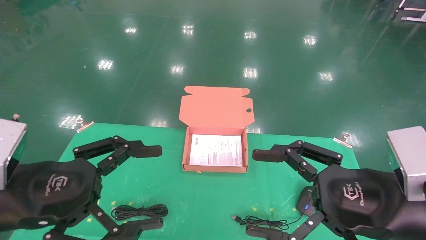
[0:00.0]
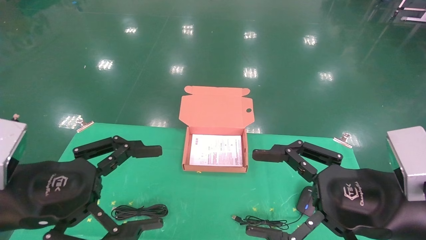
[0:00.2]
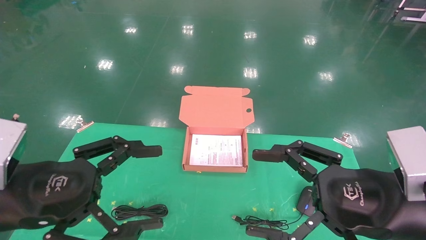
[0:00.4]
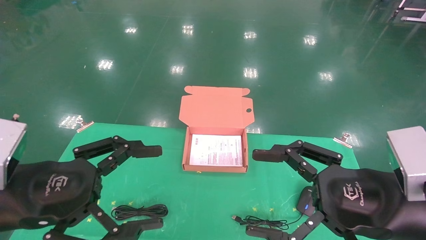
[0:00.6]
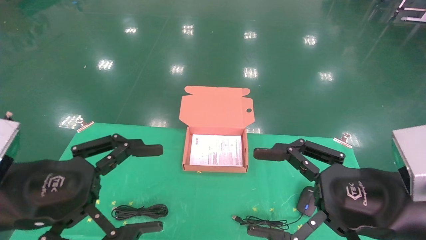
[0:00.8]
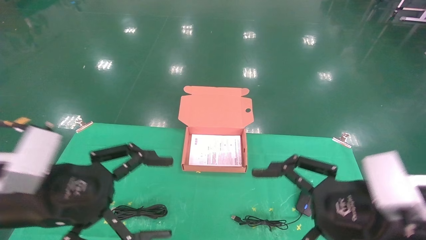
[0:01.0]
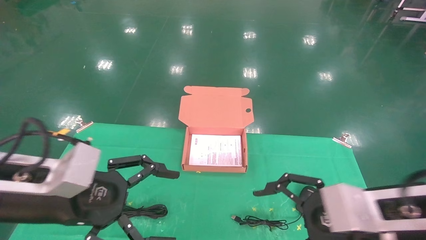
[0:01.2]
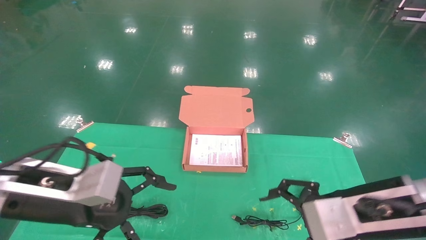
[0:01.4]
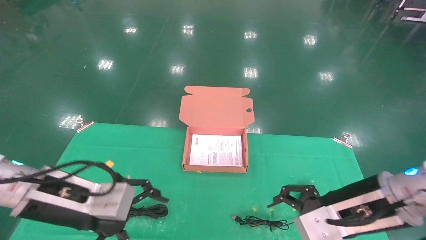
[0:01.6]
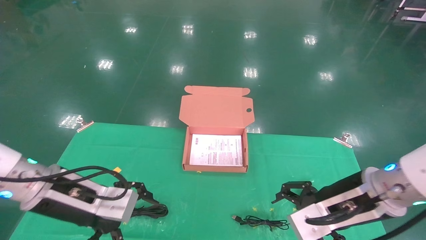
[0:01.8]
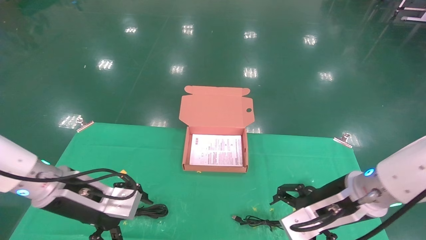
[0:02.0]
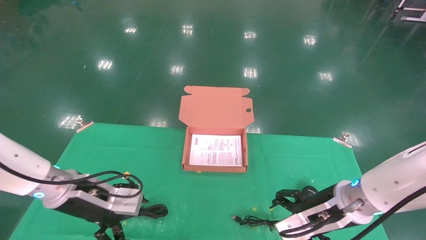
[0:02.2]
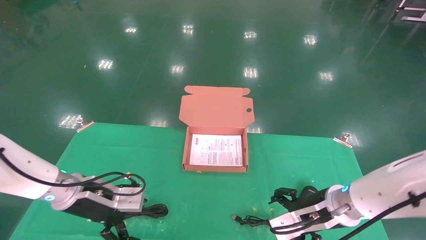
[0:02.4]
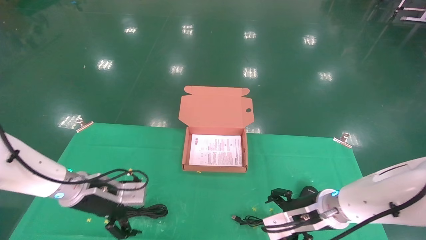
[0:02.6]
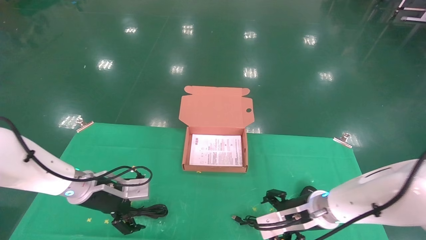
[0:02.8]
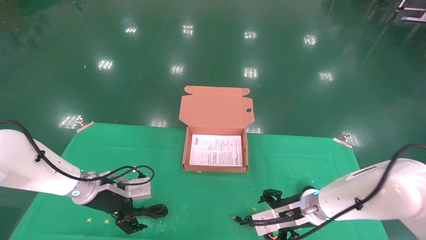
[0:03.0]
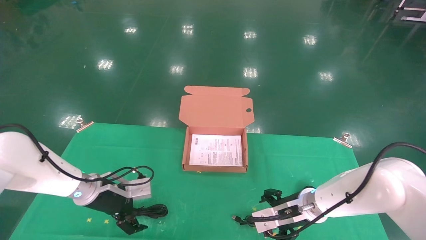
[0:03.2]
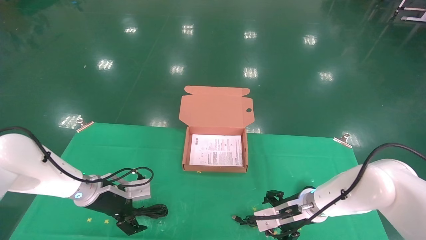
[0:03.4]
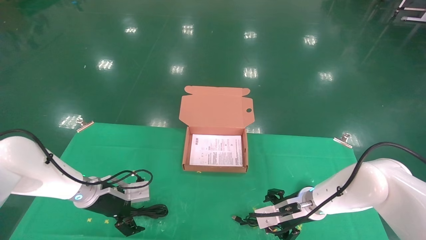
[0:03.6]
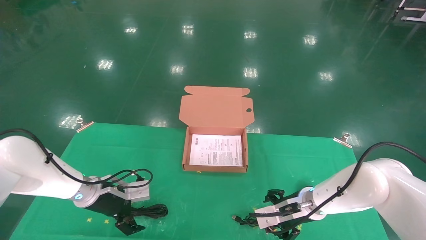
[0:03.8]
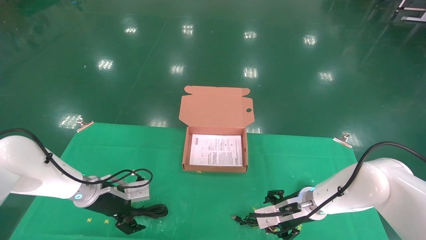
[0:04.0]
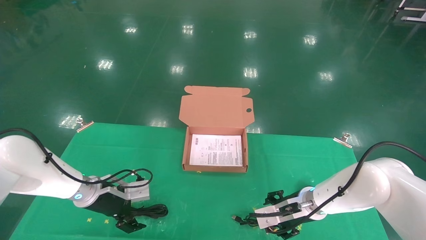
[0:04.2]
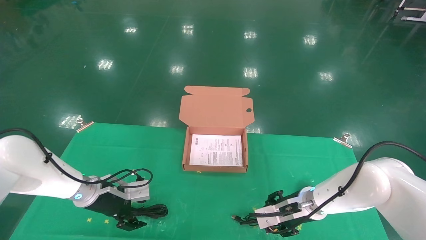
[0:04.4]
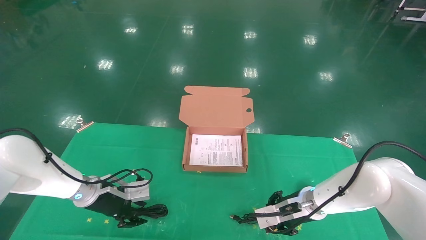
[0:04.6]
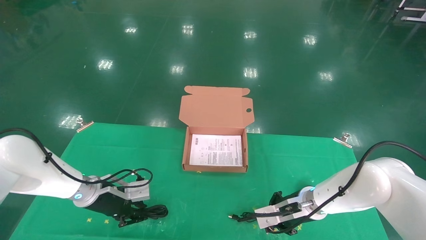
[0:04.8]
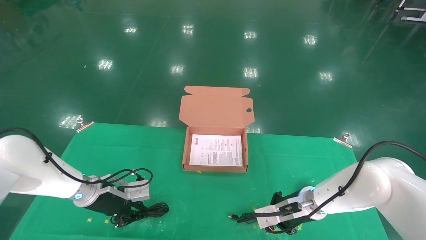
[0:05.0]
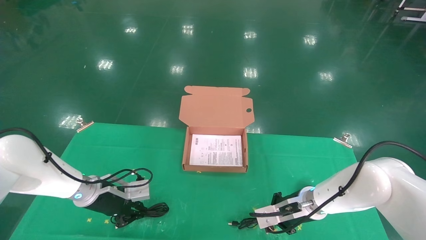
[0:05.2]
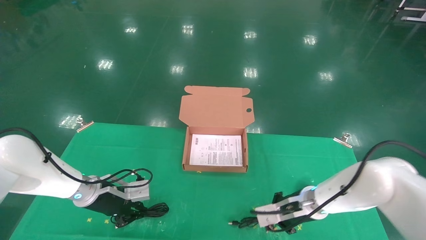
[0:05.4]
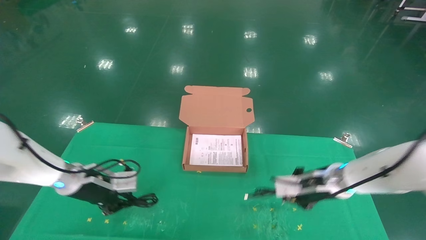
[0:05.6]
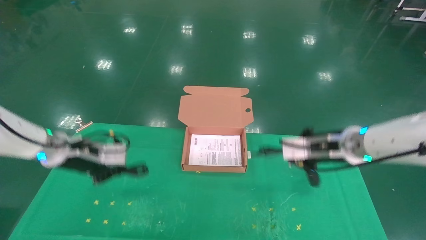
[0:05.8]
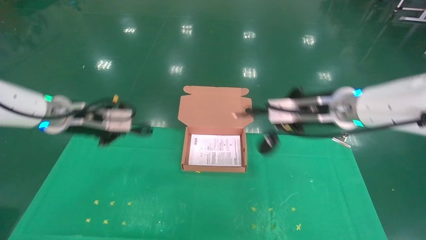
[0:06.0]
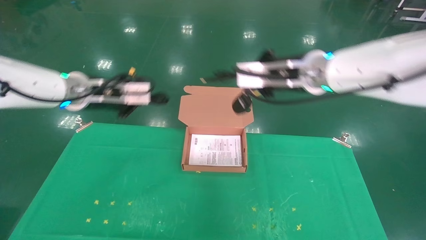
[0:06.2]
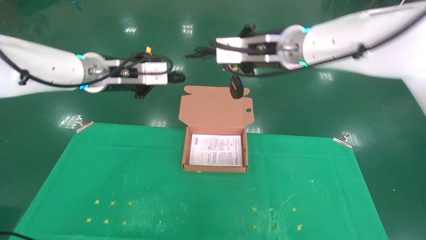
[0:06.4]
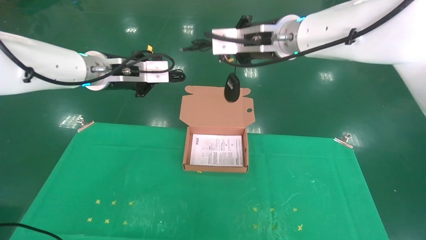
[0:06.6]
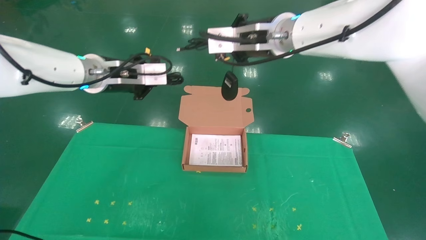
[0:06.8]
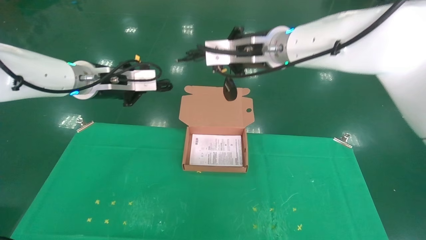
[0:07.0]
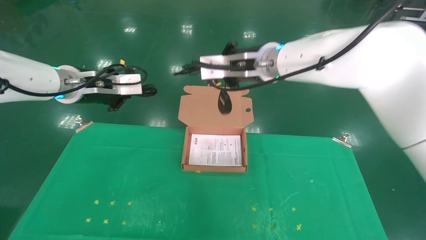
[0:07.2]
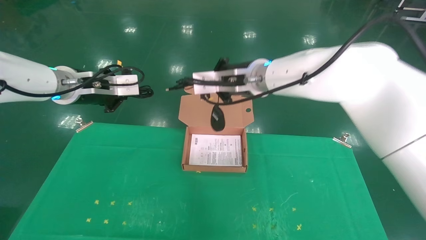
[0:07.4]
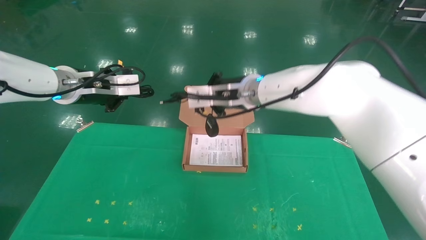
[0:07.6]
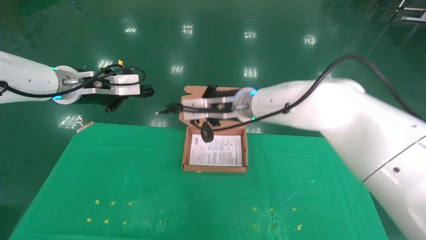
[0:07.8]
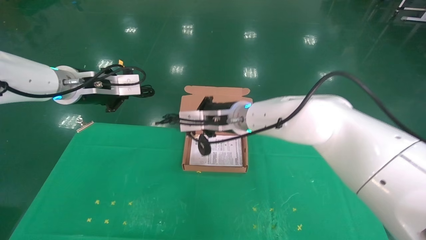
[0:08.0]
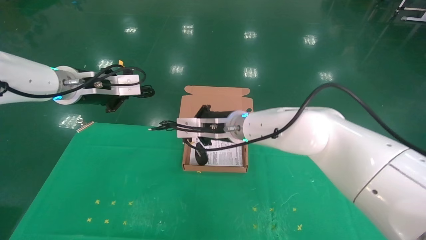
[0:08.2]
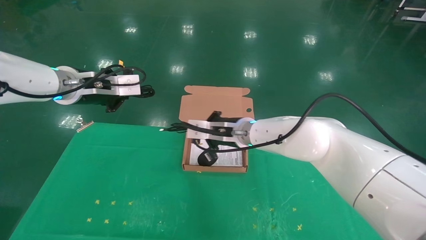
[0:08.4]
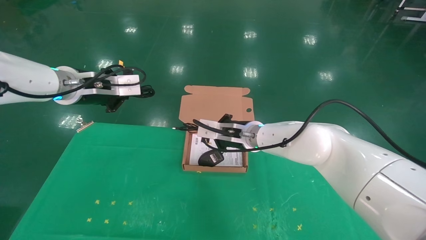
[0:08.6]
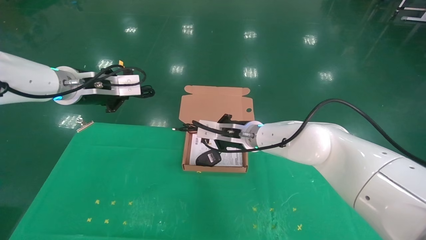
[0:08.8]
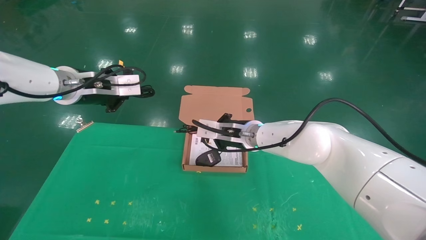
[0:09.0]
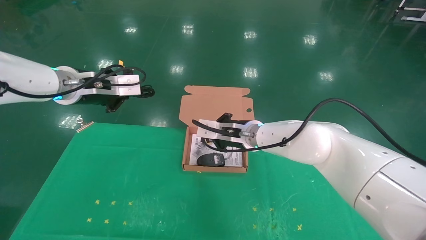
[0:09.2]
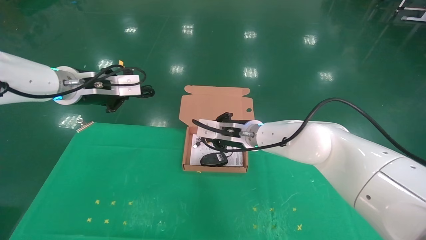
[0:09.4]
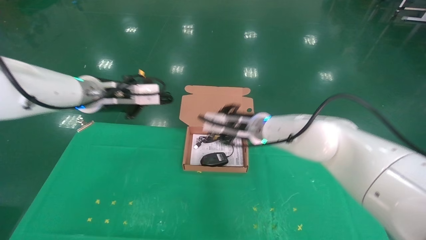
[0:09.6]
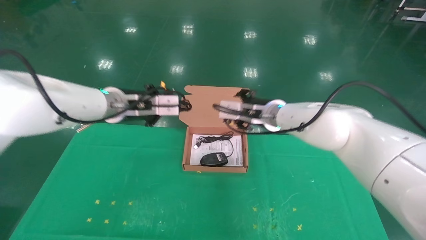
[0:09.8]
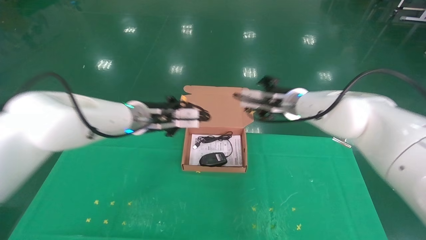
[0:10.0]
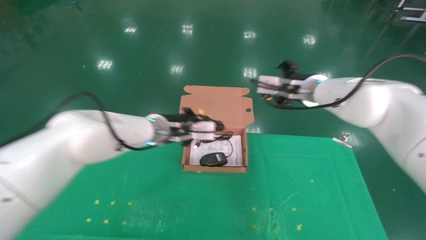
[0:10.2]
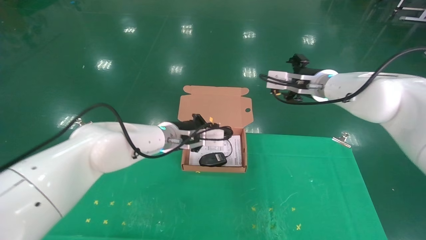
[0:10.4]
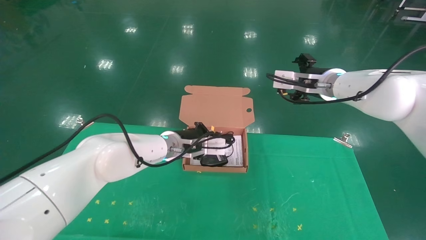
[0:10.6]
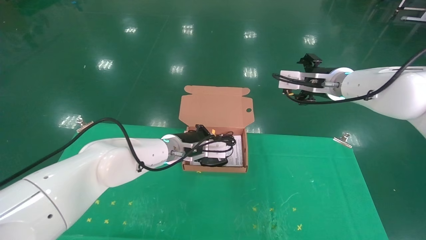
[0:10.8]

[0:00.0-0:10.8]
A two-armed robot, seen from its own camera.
Task of the whole recording: grasp data cable left put into box grasp mouse right put into box.
Step, 0:01.2 to 0:05.4: Grab and pick up both the mouse and power cord from the accessory packaging area at the same time.
0:00.0 to 0:01.6: Both grippers move forward, some 5 cm.
0:01.6 to 0:03.0: The grippers both shift forward and downward by roughly 15 cm.
0:03.0 to 0:04.6: The left gripper closes. The right gripper closes.
0:04.6 to 0:06.2: The grippers both shift upward by roughly 25 cm. The right gripper closes. The left gripper closes its fingers.
0:06.2 to 0:07.8: The right gripper goes roughly 15 cm to the left and downward.
0:07.8 to 0:09.2: The right gripper moves downward, about 10 cm.
0:09.2 to 0:10.8: The right gripper is displaced to the right and upward by roughly 20 cm, and opens; the left gripper moves to the right and downward, about 25 cm.

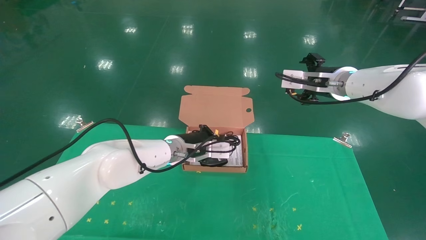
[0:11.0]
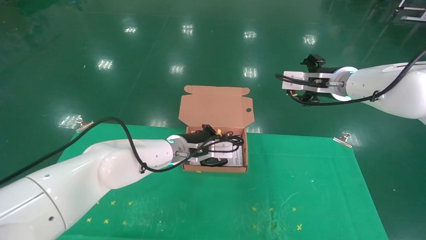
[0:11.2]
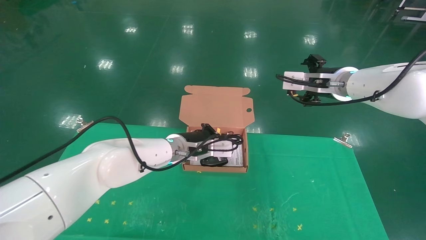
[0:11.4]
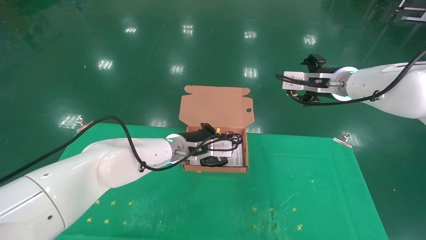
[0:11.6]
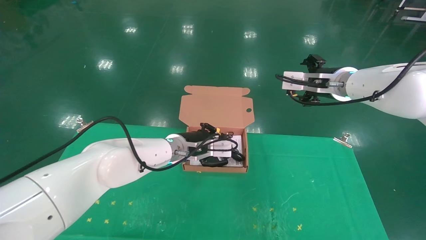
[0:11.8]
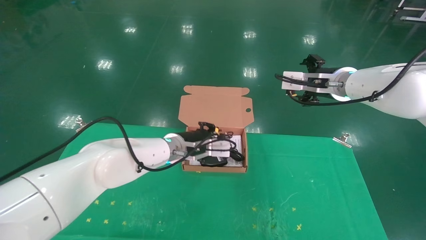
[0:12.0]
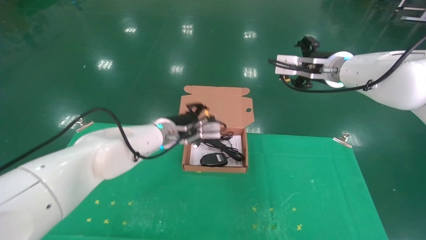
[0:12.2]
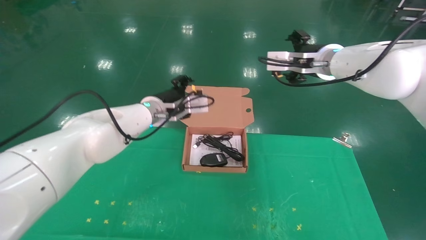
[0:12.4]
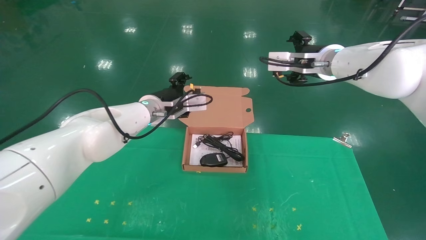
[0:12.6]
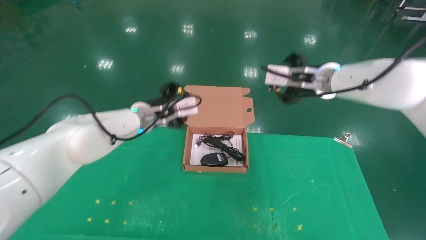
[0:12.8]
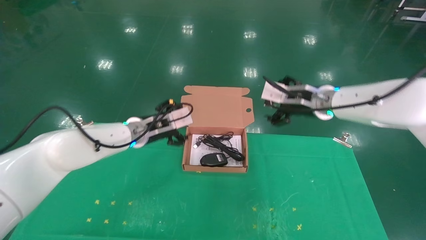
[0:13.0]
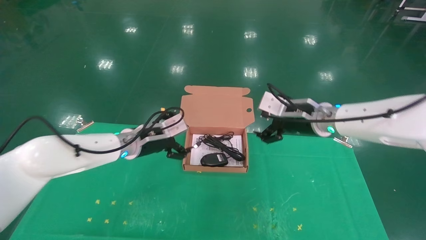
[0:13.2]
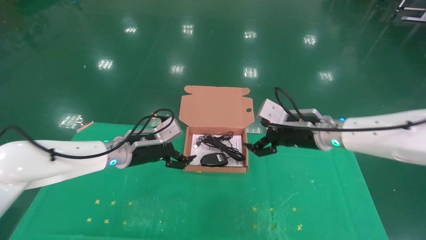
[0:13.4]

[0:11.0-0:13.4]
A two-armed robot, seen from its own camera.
Task of the whole recording: grasp data cable left put into box grasp mouse right put into box.
0:11.0 to 0:12.2: The left gripper opens its fingers.
0:12.2 to 0:13.4: The left gripper heads to the left, covering roughly 10 cm, and opens up, while the right gripper goes roughly 10 cm downward.
